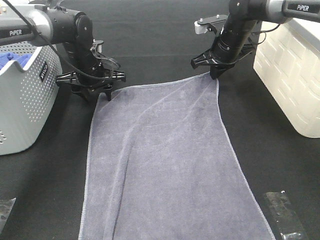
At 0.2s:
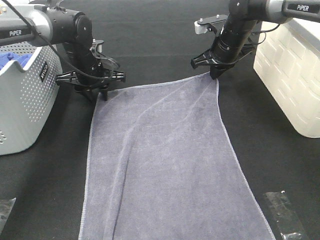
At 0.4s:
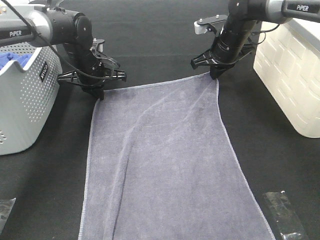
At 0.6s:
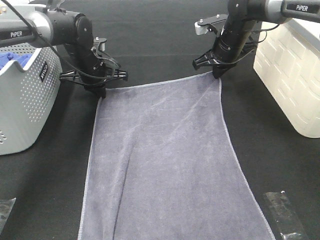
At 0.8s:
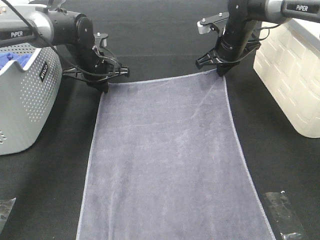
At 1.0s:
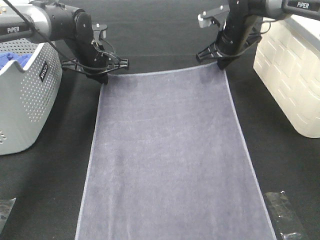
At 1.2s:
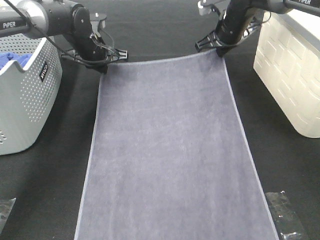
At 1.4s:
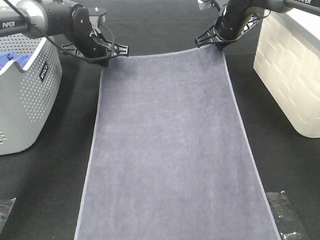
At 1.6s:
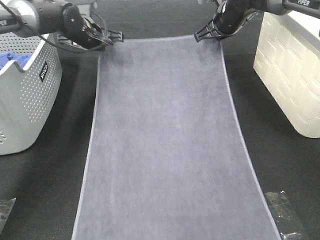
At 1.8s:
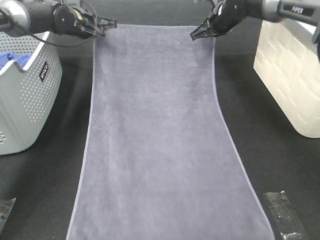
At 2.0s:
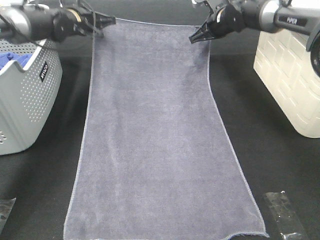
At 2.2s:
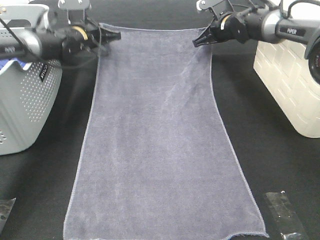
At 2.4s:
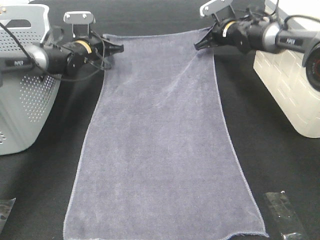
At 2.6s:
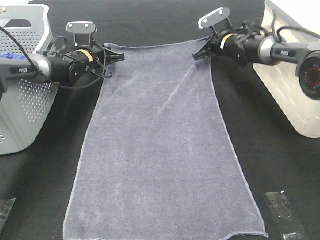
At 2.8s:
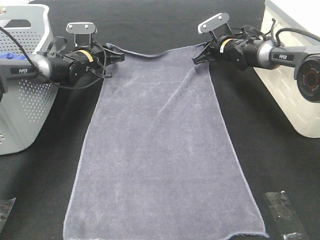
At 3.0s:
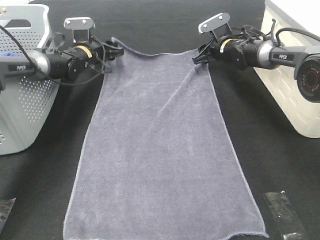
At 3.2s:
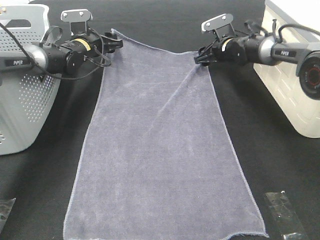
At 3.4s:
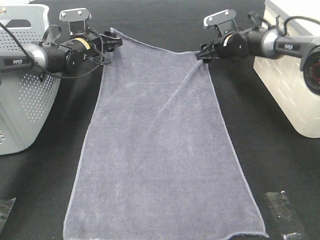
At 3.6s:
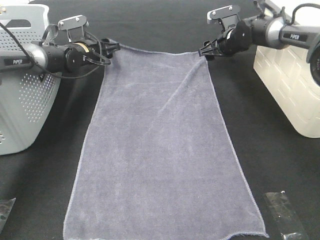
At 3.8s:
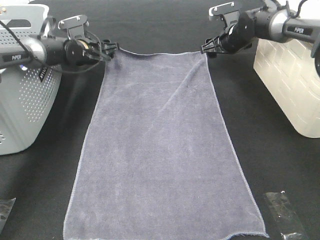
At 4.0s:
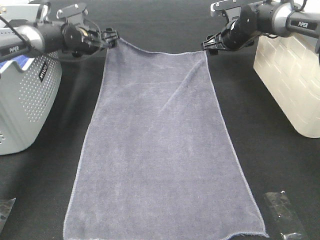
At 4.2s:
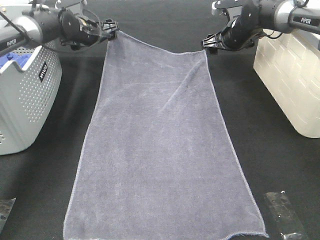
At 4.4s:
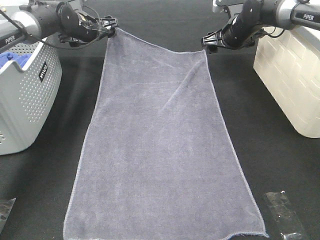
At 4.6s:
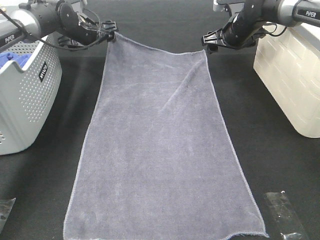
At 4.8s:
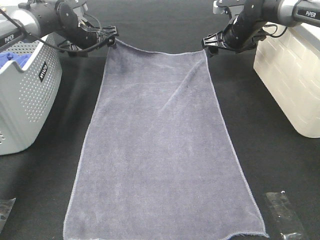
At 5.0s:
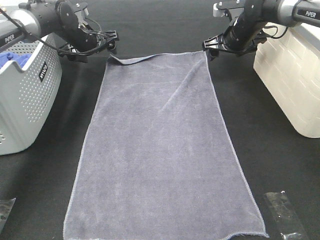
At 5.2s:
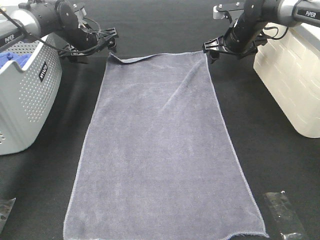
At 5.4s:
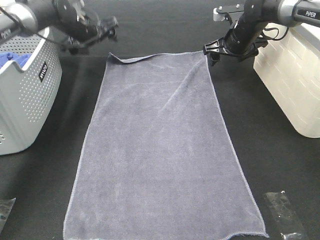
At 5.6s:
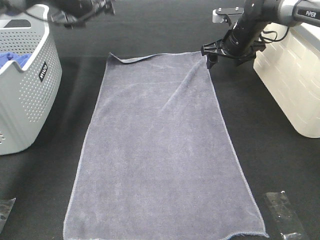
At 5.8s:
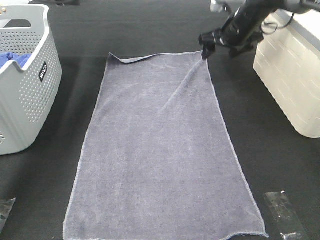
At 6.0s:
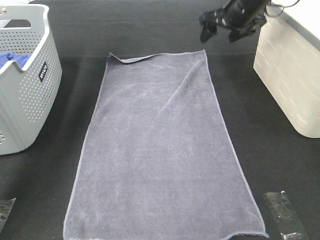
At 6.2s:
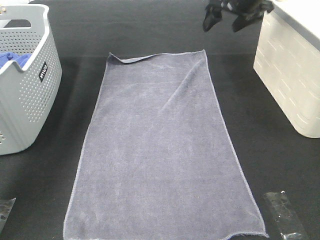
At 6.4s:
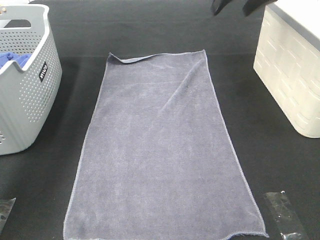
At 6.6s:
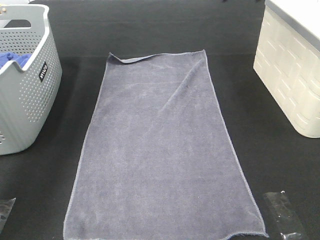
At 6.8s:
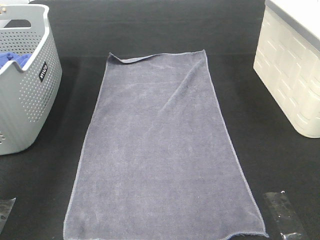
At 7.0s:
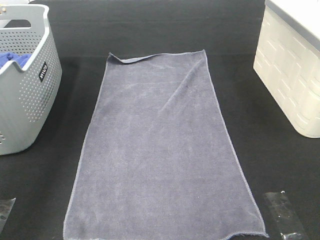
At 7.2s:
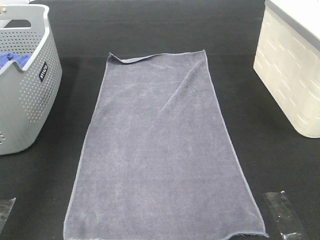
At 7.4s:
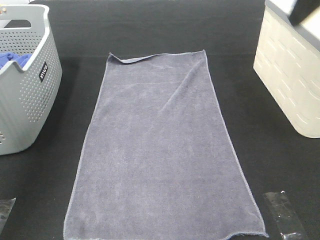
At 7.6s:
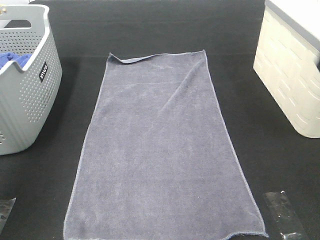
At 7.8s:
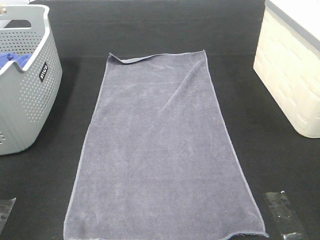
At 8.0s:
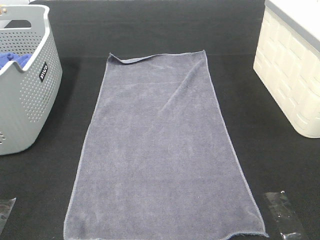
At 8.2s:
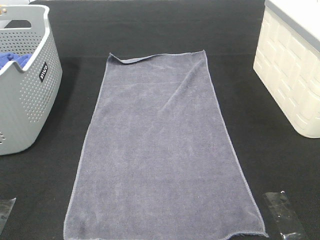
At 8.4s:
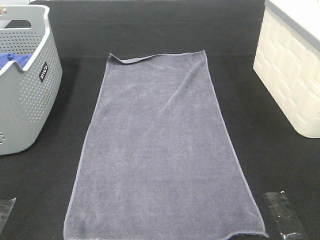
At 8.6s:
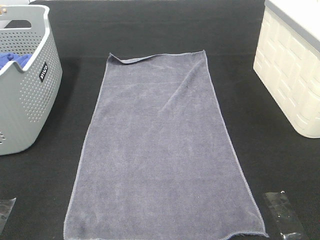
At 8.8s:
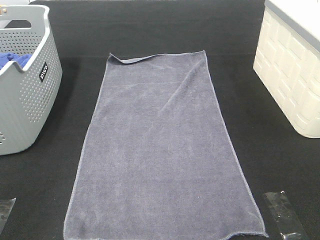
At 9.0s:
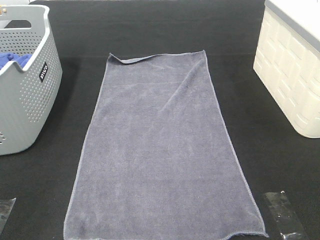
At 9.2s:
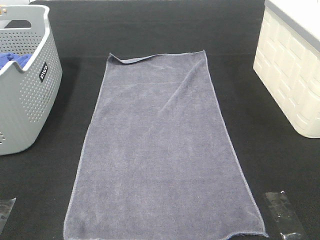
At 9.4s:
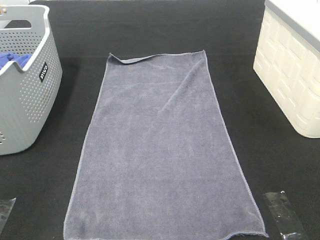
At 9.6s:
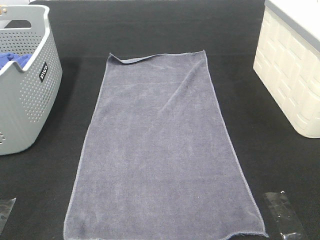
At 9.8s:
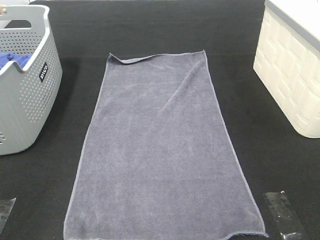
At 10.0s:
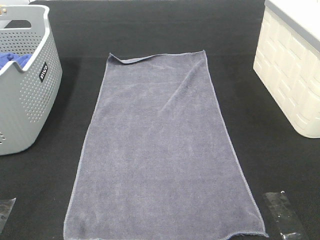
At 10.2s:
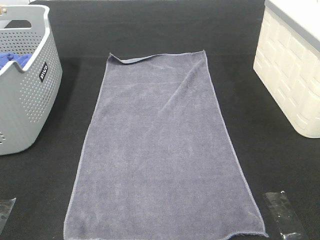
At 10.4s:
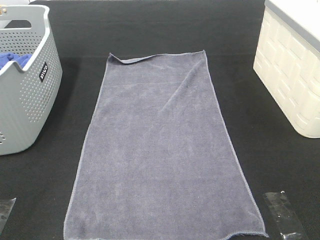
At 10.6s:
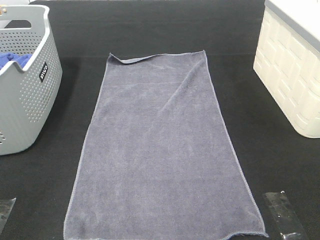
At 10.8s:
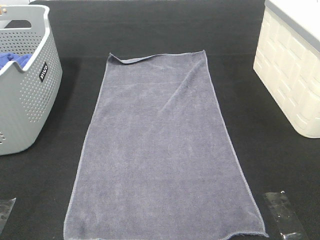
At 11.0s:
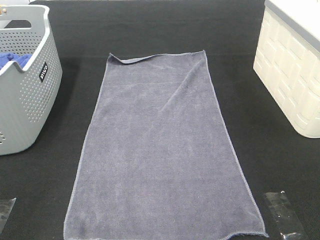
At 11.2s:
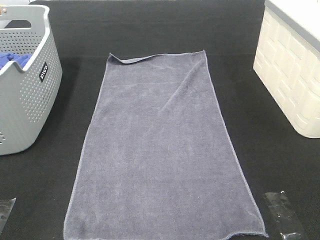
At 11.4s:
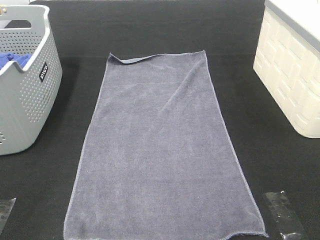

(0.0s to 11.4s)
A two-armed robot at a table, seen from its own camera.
Task of the whole recording: Remove the towel and place it.
0.0s - 1.4s: The left gripper moves roughly 5 cm, and closes.
1.4s - 2.8s: The grippers both shift downward by some 10 cm.
2.8s - 4.2s: The two grippers go roughly 5 cm upward. The left gripper opens its fingers. The right gripper opens its fingers.
4.2s - 5.6s: The left gripper is displaced upward by approximately 10 cm.
5.6s - 7.2s: The left gripper goes roughly 35 cm backward and upward; the right gripper shifts approximately 30 cm upward and backward.
7.2s - 8.6s: The right gripper is displaced backward by approximately 35 cm; the left gripper shifts roughly 35 cm backward and downward.
10.0s - 11.4s: Neither gripper changes place.

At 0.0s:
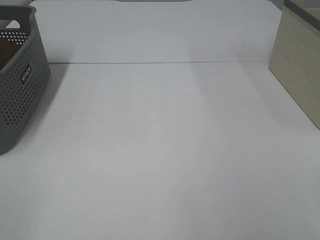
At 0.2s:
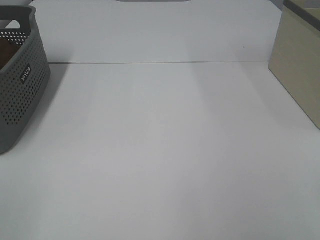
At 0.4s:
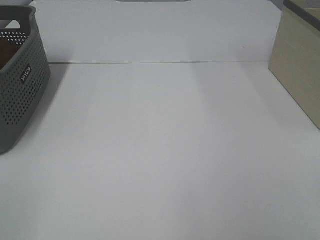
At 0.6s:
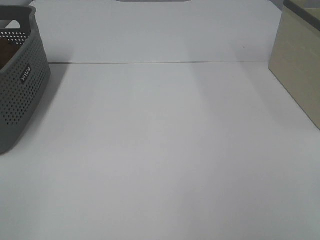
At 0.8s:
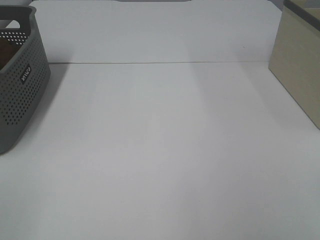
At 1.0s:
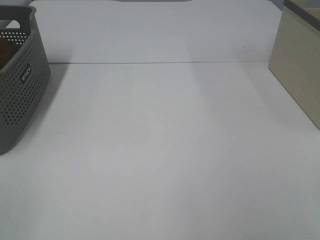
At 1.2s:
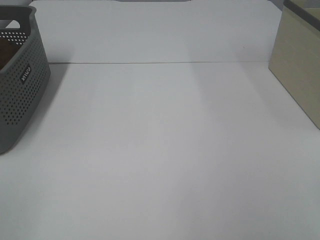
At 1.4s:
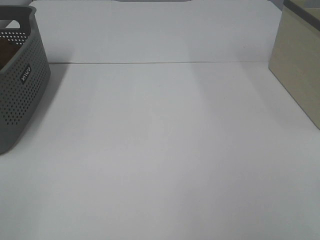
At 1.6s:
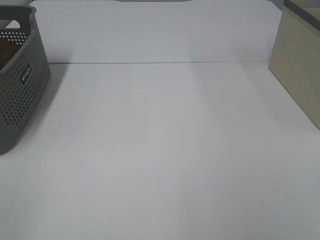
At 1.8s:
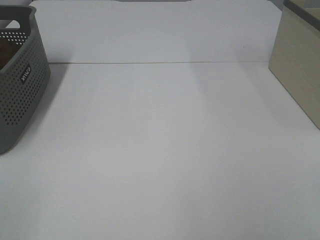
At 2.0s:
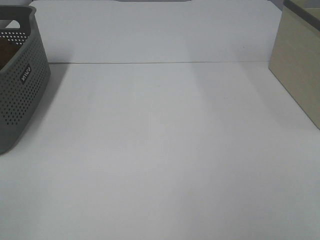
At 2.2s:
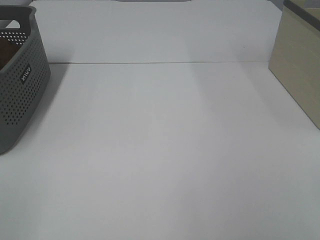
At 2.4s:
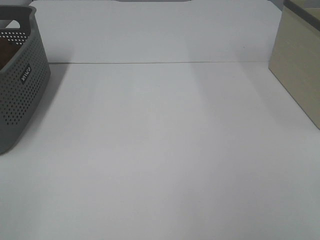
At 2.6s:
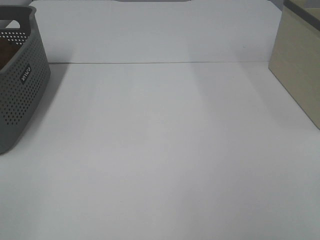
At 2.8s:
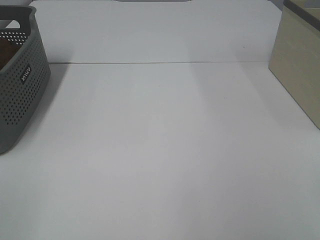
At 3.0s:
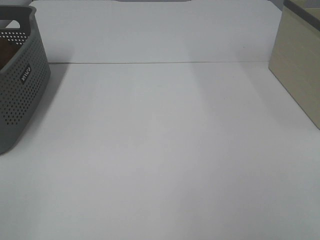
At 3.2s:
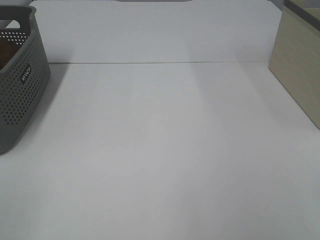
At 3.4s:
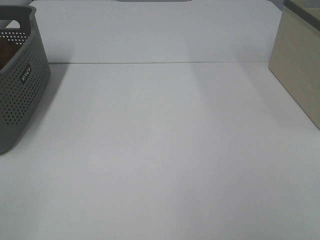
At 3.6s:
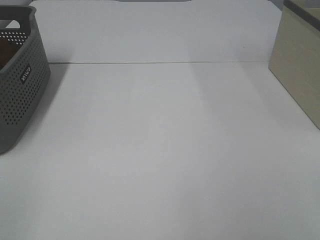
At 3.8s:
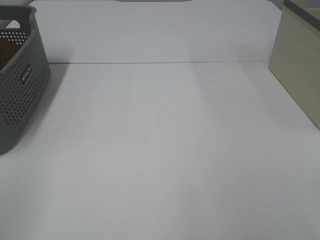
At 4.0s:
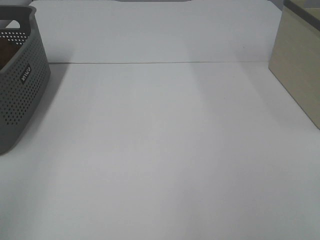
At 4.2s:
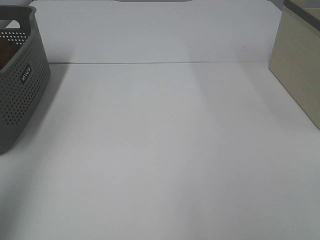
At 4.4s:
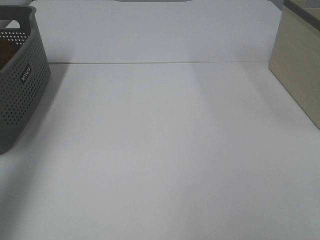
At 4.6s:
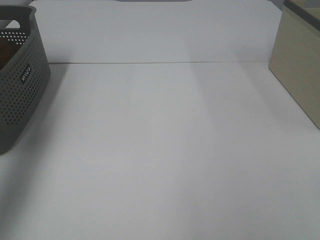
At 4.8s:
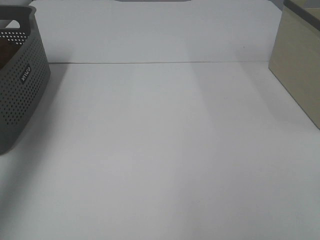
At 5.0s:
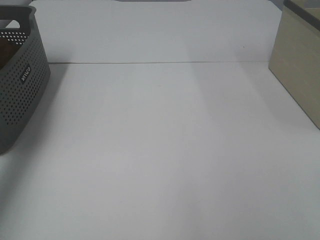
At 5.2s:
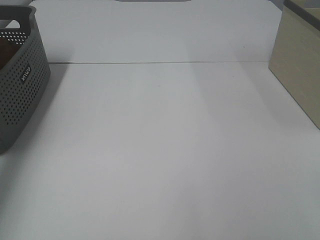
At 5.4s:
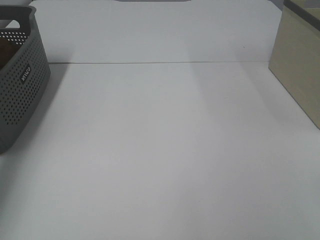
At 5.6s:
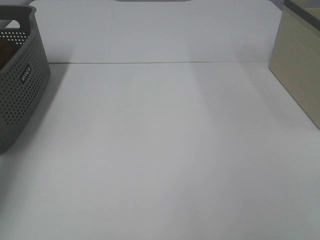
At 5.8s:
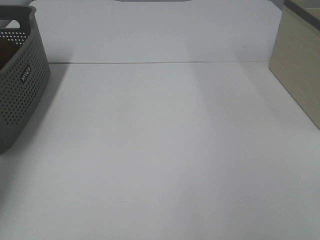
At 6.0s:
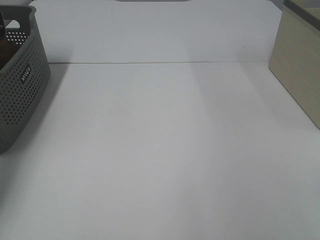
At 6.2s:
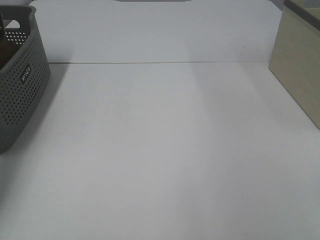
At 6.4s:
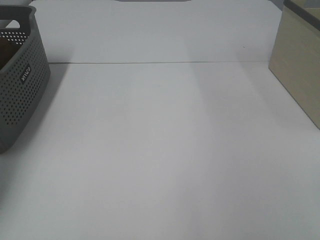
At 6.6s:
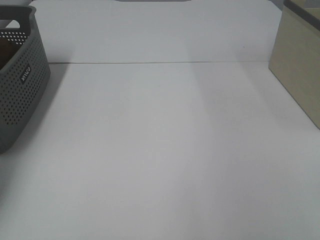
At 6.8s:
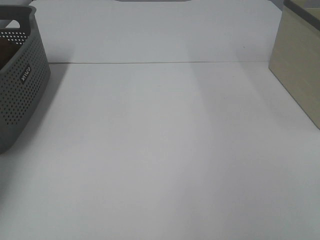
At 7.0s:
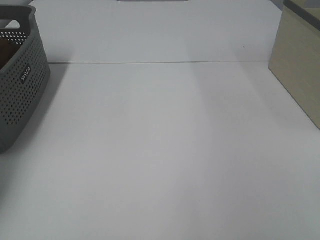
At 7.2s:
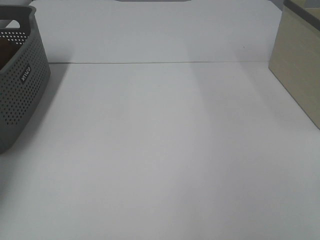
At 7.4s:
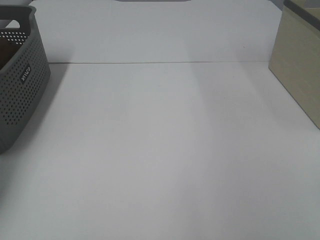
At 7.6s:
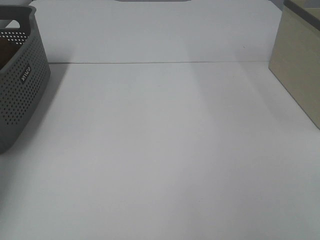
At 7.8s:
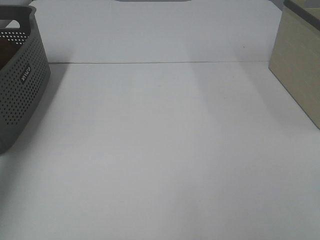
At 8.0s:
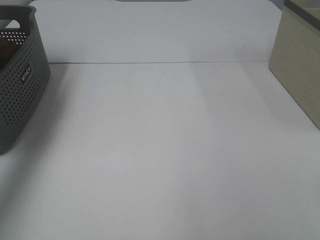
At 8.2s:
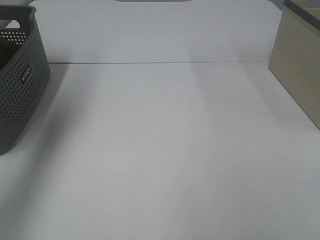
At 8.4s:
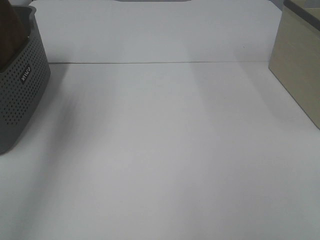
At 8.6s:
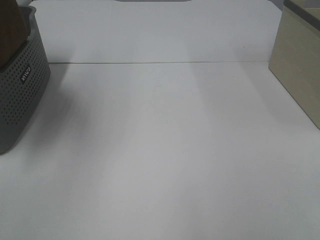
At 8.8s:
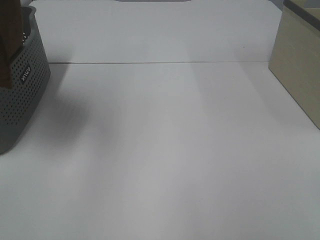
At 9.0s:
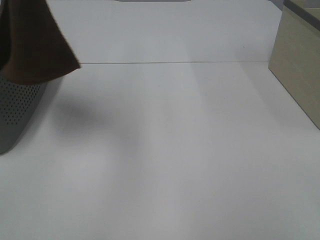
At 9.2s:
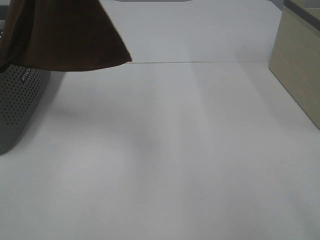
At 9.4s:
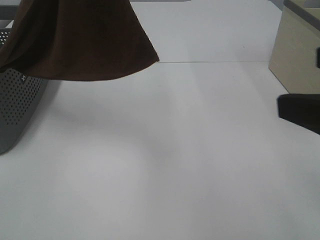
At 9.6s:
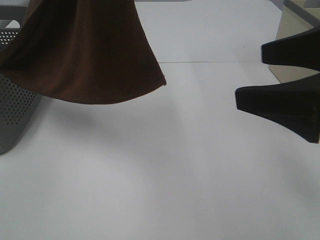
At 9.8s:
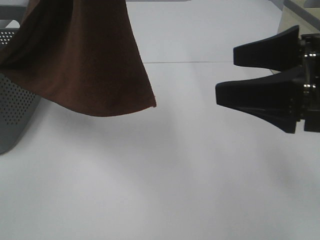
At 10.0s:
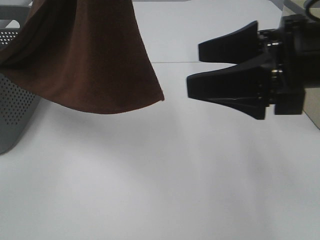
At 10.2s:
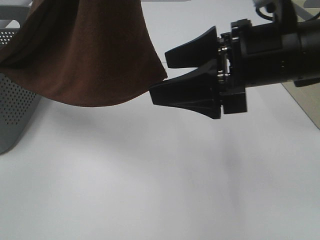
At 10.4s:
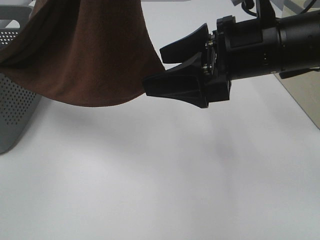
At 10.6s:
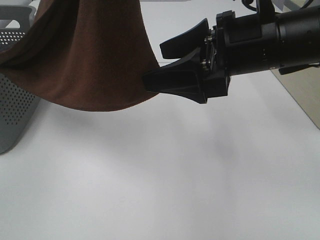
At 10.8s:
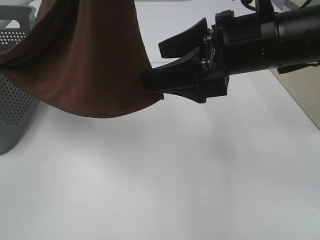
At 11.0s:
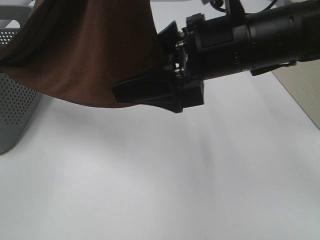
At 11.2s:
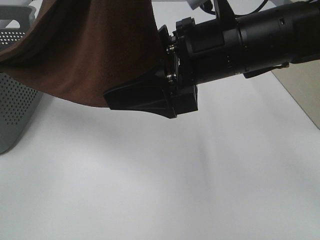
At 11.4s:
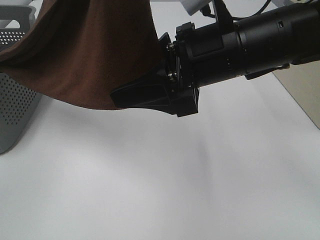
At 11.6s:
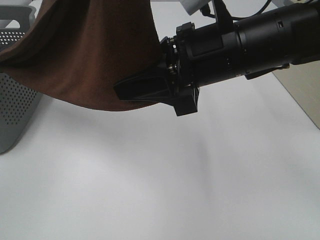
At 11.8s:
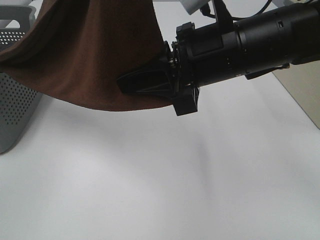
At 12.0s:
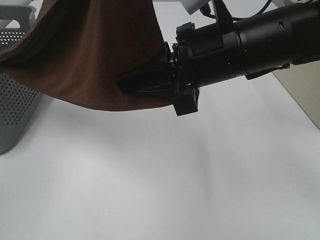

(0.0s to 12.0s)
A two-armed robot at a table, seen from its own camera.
Task of the whole recording: Remove the towel and place it.
0.0s - 3.0s: Both grippers stay about where they are.
3.0s - 4.4s: The left gripper is displaced forward and upward by about 30 cm.
4.4s - 6.0s: The left gripper goes approximately 35 cm forward and downward.
7.6s - 9.0s: The left gripper goes some 40 cm to the right, upward and backward.
9.0s - 10.4s: The right gripper shifts roughly 25 cm forward and to the left; the left gripper shifts about 5 cm to the right.
10.4s - 12.0s: The right gripper closes.
